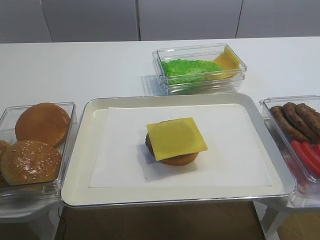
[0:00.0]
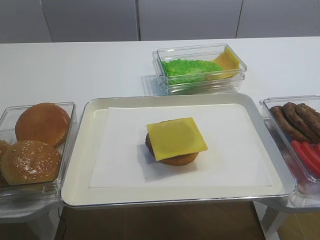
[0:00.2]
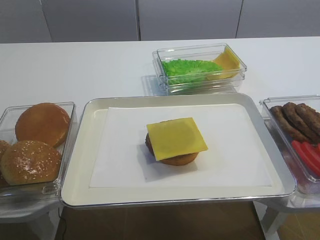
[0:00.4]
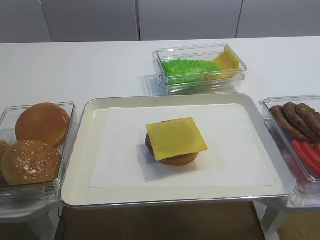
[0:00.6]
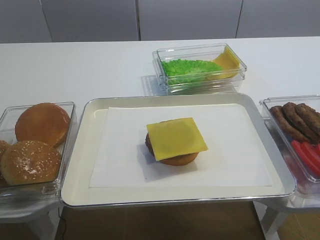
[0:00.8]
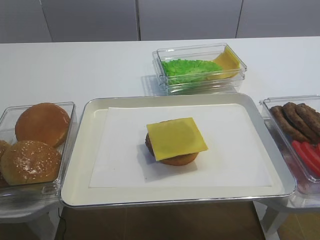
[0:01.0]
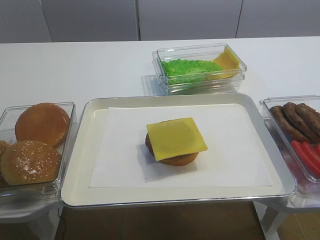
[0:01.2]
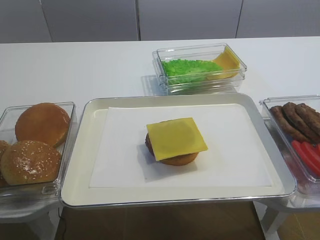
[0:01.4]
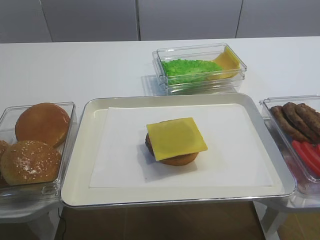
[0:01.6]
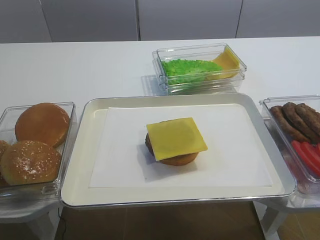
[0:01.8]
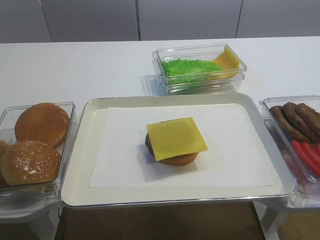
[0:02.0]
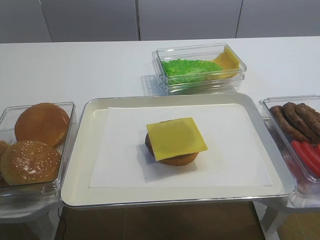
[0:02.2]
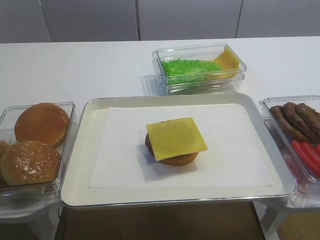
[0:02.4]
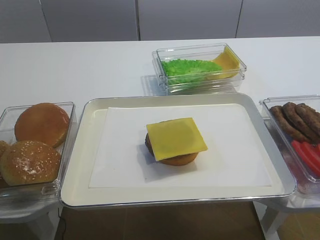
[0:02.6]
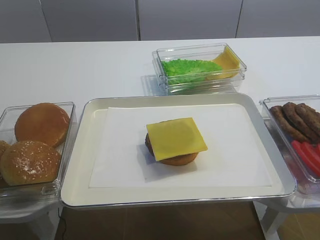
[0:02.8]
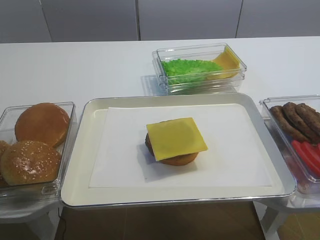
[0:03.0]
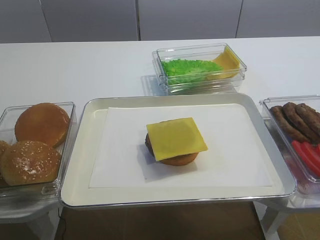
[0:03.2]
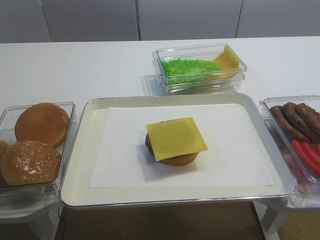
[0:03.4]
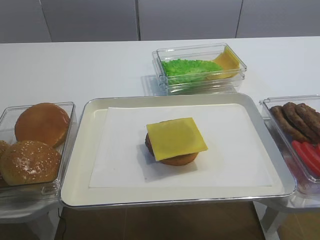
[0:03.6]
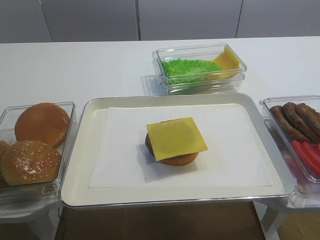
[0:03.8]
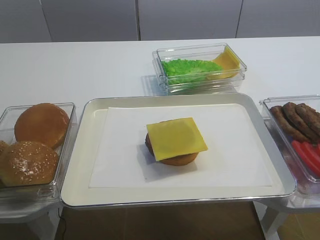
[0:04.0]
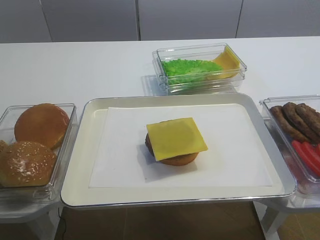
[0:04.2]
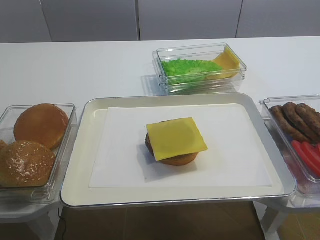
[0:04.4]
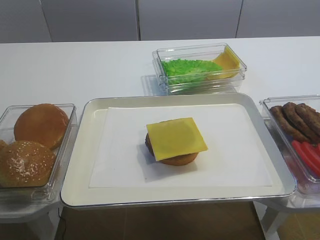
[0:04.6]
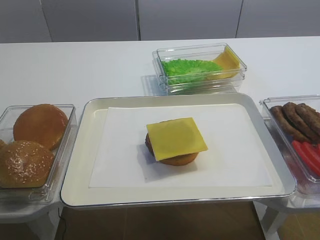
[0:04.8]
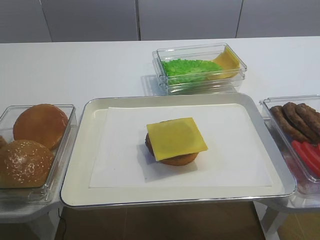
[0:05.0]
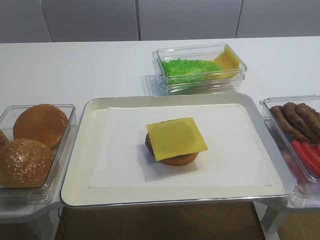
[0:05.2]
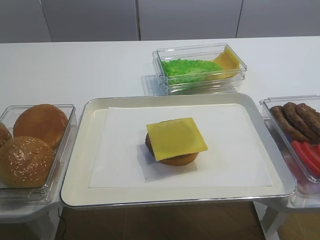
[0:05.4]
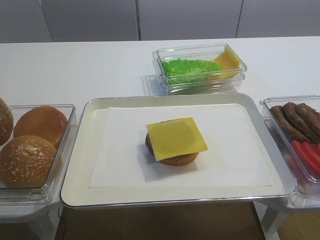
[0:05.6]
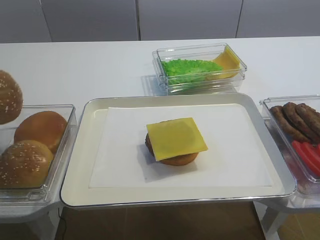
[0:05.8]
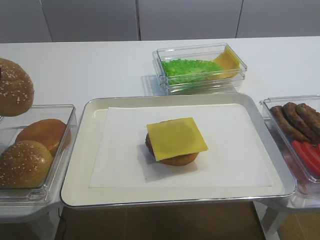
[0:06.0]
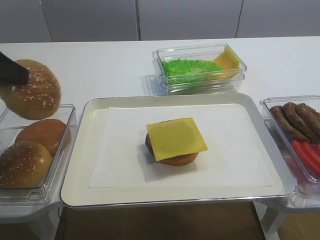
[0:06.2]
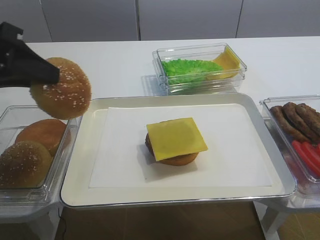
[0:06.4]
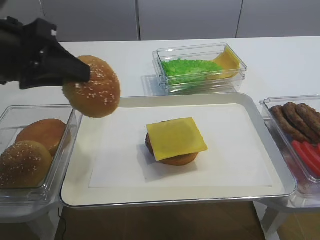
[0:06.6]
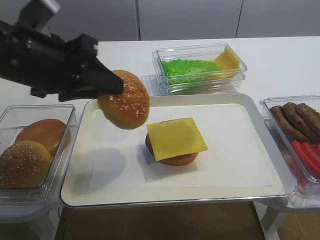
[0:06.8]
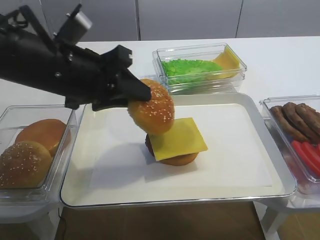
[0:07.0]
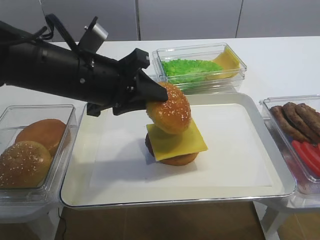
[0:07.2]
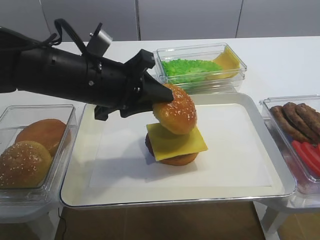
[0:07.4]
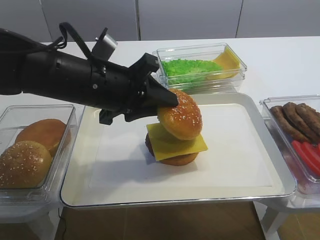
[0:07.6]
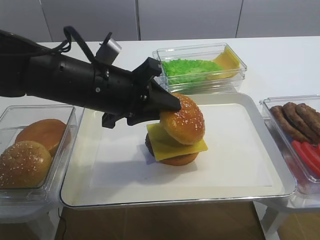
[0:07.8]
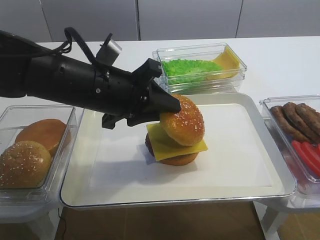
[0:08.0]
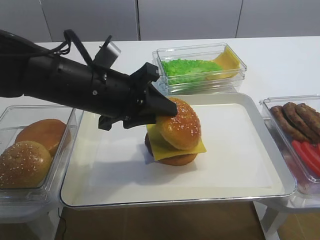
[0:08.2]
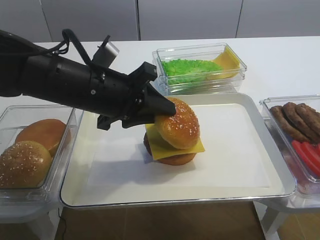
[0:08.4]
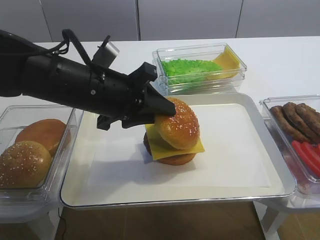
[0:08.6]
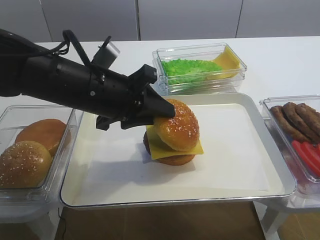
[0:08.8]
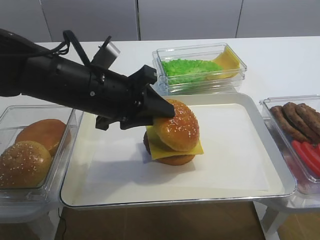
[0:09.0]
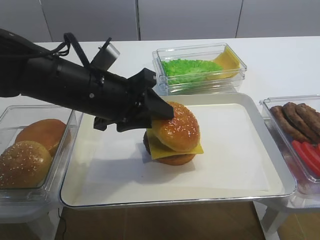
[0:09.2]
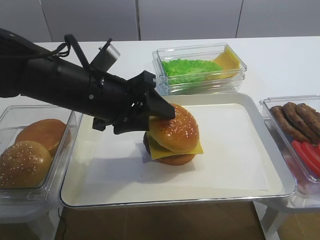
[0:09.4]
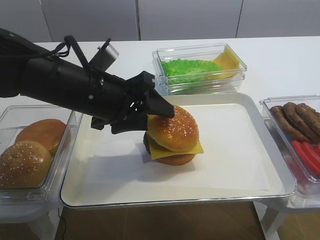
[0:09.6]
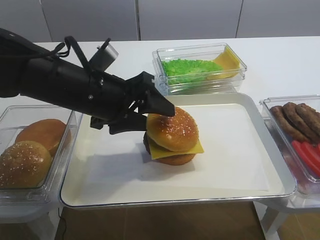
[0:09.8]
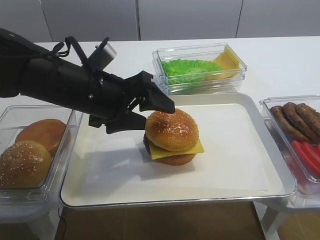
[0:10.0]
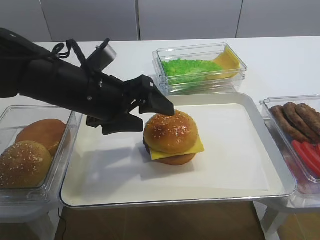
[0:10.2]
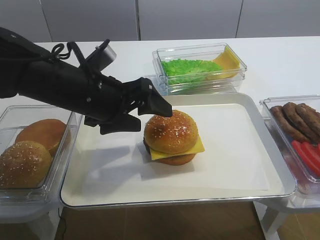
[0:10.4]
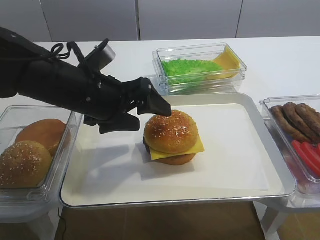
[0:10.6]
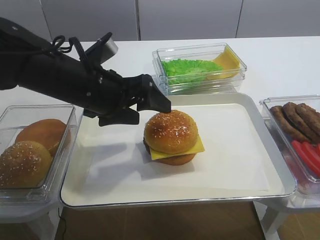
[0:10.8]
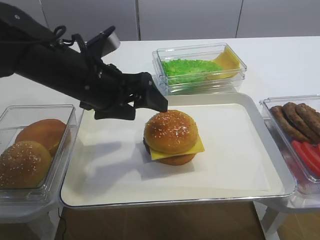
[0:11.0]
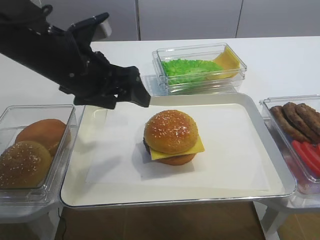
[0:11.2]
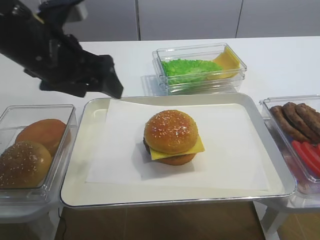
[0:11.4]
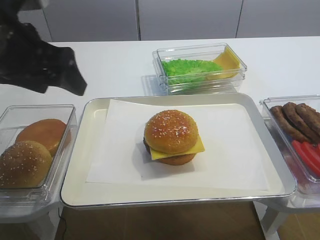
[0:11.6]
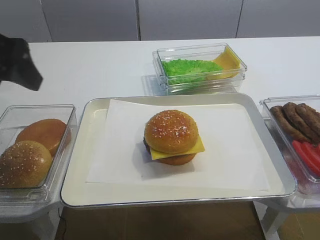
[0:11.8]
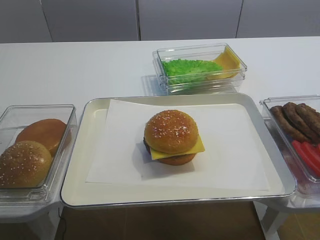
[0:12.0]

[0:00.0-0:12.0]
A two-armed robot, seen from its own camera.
Step, 0:05.8 to 0:10.2: Place the hamburger lid on the cheese slice with the left gripper.
0:03.0 to 0:04.4: The left gripper closes its fingers.
0:04.4 to 0:06.0: The left gripper heads upward, covering some 10 cm.
0:06.0 to 0:07.6: The left gripper goes roughly 20 cm to the right.
0:07.6 to 0:09.0: The grippers stay close to where they were, moving slightly.
0:09.0 to 0:10.4: The left gripper opens its fingers.
0:10.4 to 0:12.0: The left gripper shifts approximately 20 cm to the left, upward and backward.

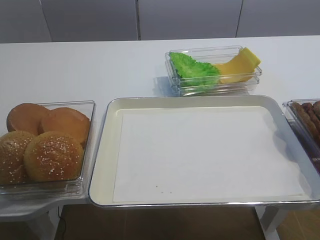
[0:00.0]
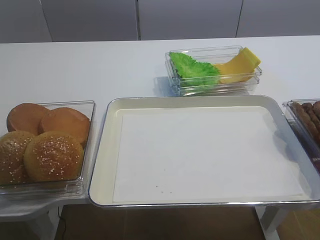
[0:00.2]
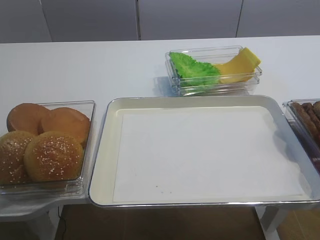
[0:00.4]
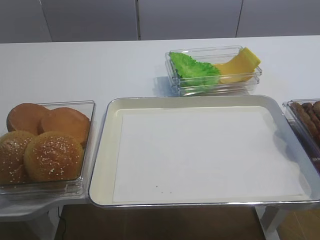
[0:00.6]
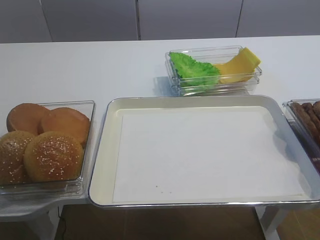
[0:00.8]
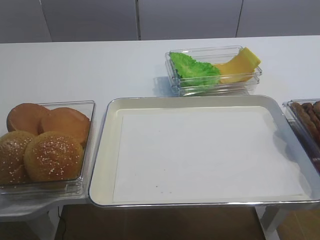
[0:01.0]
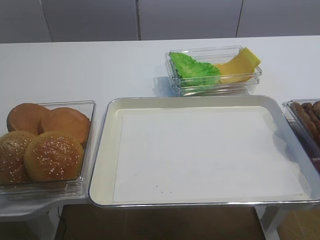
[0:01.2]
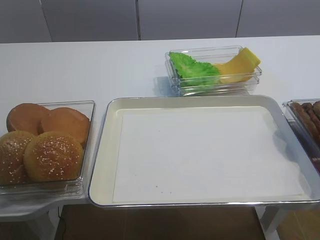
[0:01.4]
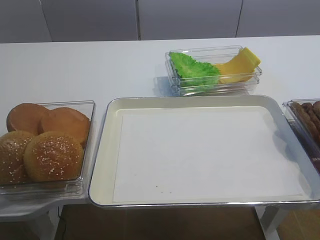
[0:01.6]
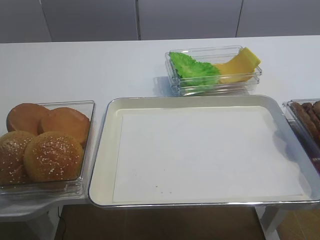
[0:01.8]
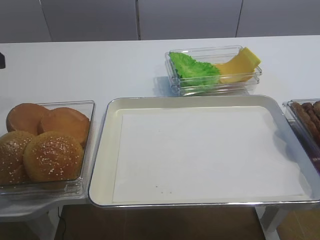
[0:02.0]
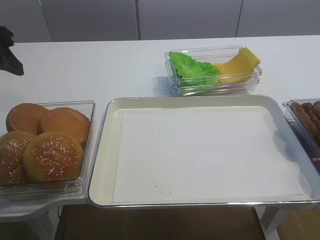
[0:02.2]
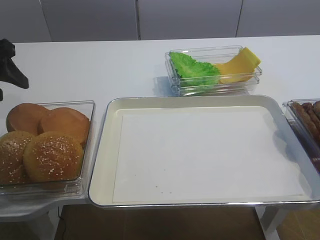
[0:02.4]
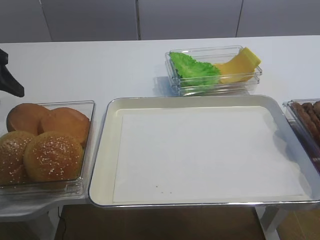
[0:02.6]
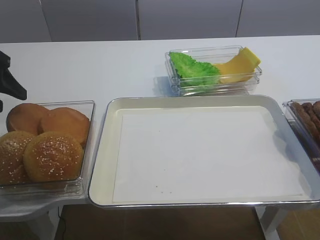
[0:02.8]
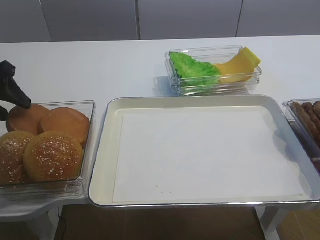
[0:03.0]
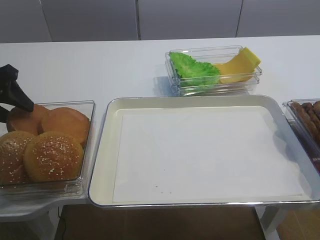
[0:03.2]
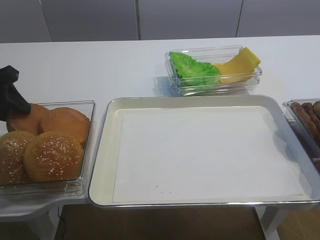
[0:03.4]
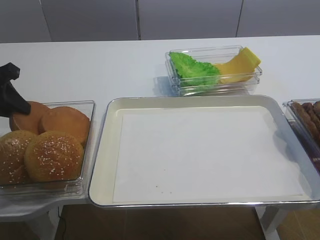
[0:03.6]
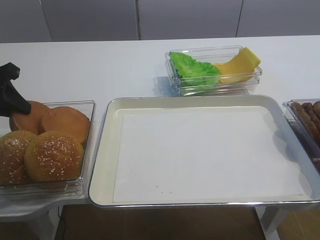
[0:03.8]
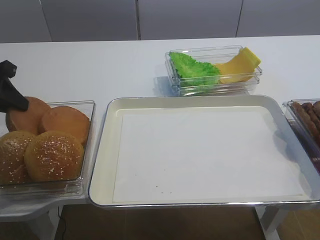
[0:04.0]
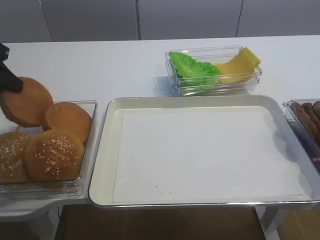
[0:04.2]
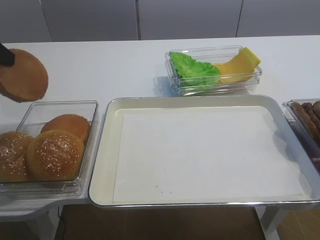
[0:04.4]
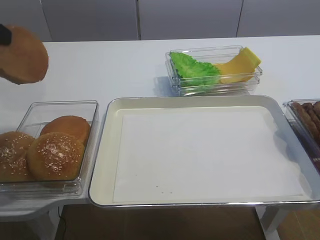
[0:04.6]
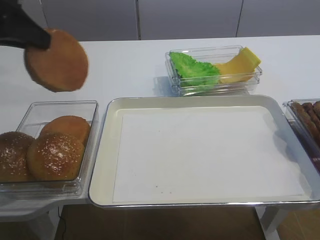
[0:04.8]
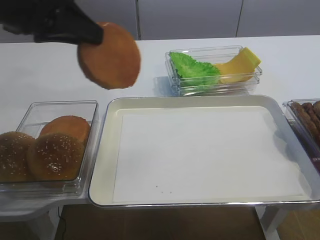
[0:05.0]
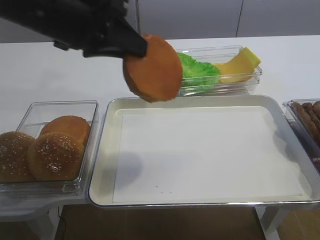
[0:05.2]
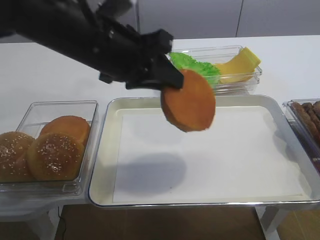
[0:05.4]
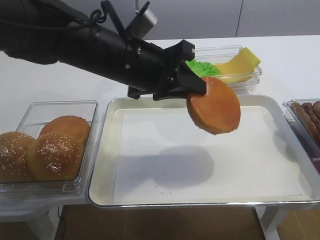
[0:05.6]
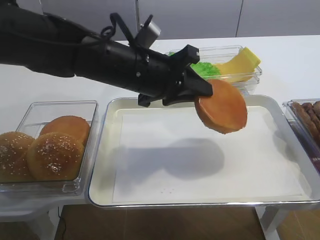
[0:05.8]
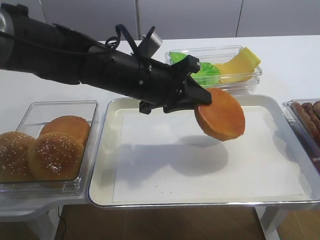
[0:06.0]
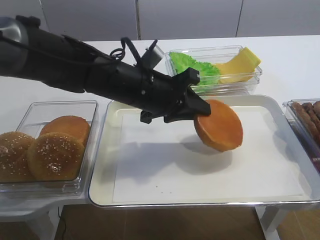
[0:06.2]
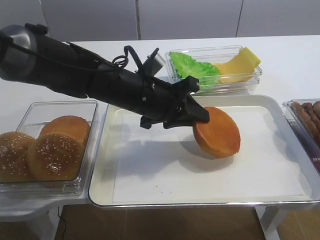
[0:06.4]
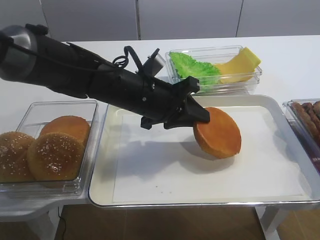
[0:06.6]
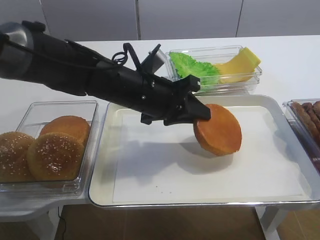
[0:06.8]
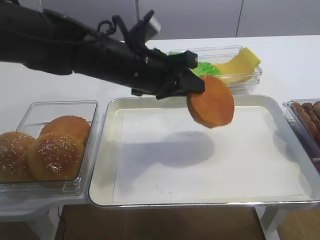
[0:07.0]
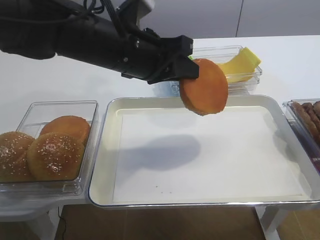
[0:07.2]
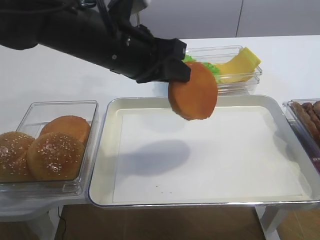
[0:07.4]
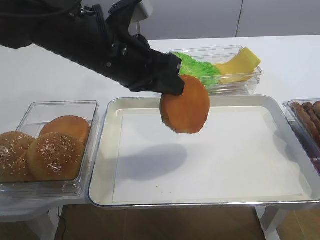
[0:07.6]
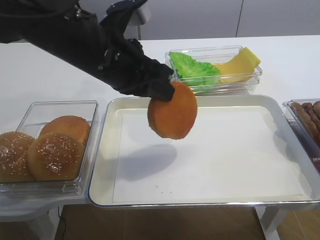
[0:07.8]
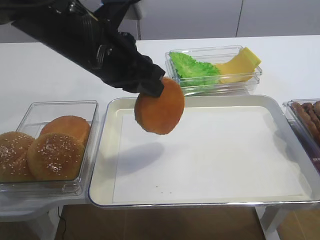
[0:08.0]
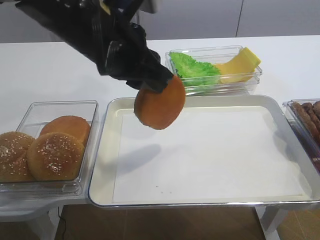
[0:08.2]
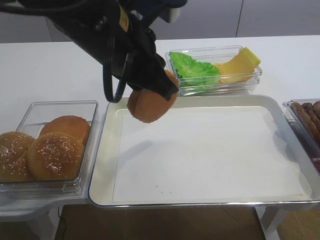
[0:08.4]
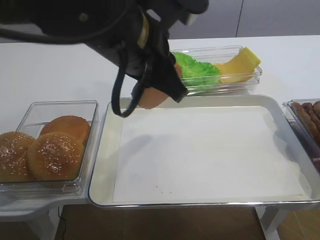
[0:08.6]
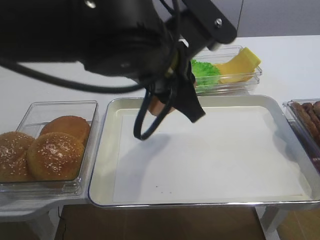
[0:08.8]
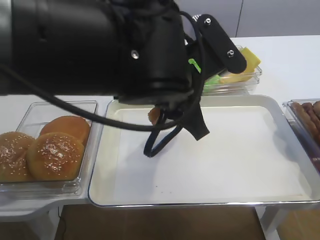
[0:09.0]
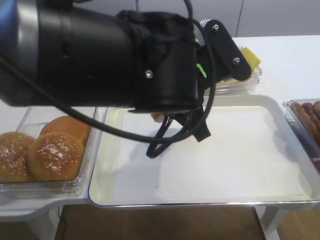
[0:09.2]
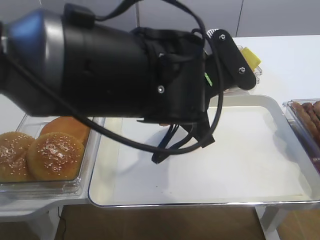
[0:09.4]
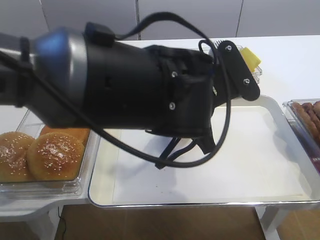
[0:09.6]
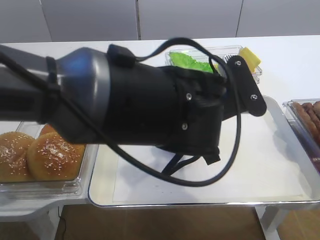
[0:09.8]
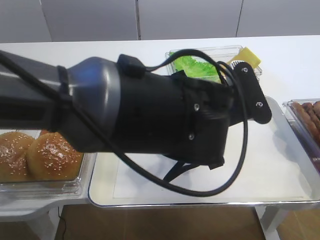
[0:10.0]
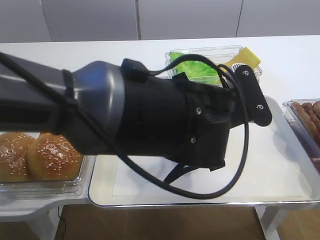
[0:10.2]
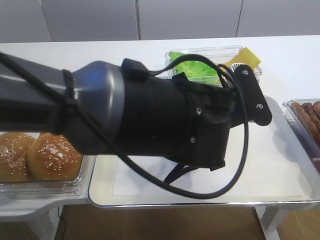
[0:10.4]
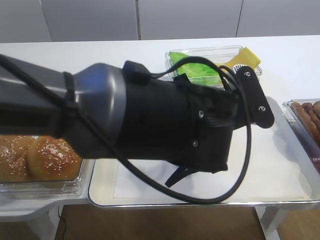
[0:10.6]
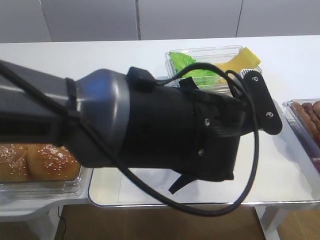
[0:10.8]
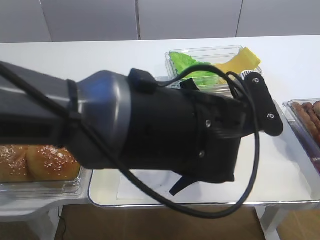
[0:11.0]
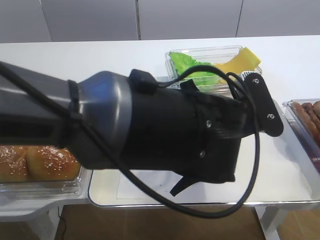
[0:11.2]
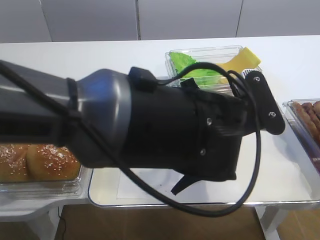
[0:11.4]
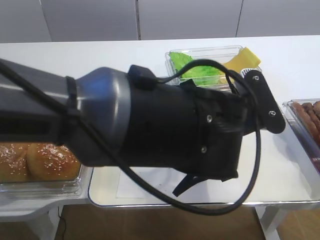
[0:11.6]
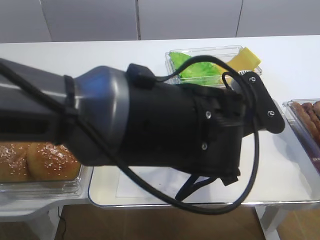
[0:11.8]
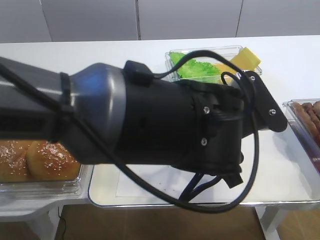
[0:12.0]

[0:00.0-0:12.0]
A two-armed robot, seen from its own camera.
Step, 0:00.0 to 0:04.2: Pick up the bread slice with the left gripper.
Step, 0:04.4 to 0:12.0: Place the bread slice on the tray with the left gripper.
0:01.6 to 0:03.0: The left gripper moves forward and downward, some 20 cm.
0:03.0 to 0:04.4: The left gripper heads upward, covering approximately 10 cm, and closes.
0:04.4 to 0:06.0: The left gripper goes some 25 cm to the right.
0:06.0 to 0:07.6: The left gripper heads upward, covering some 5 cm.
0:07.6 to 0:09.0: The left gripper is displaced to the right by approximately 10 cm.
0:09.0 to 0:10.4: The left gripper moves downward, approximately 5 cm.
0:10.4 to 0:12.0: The left gripper opens up.
